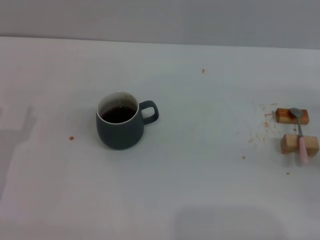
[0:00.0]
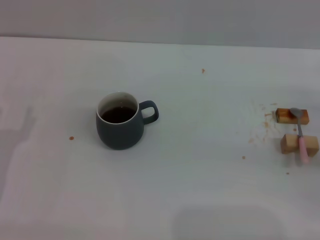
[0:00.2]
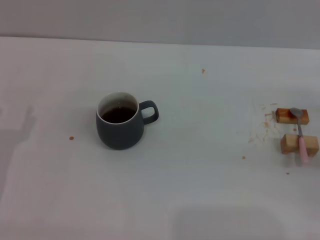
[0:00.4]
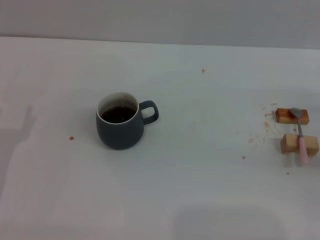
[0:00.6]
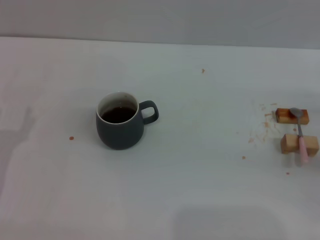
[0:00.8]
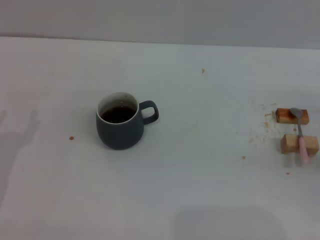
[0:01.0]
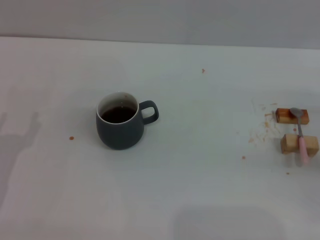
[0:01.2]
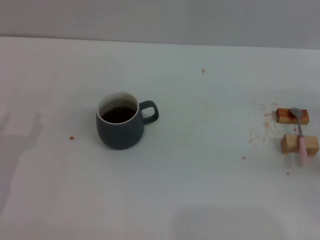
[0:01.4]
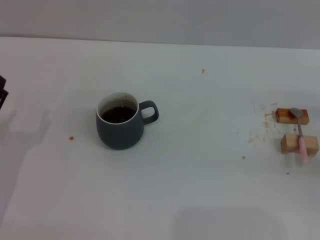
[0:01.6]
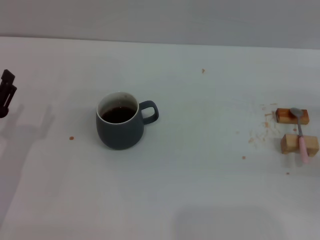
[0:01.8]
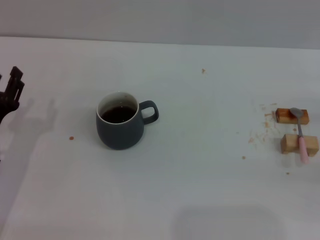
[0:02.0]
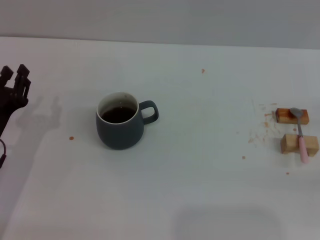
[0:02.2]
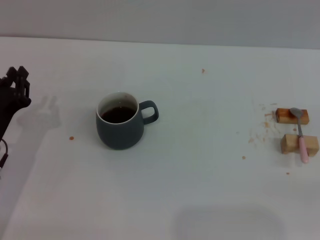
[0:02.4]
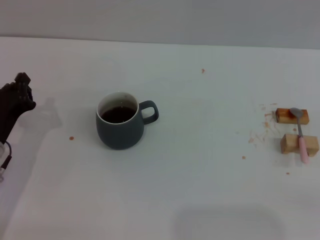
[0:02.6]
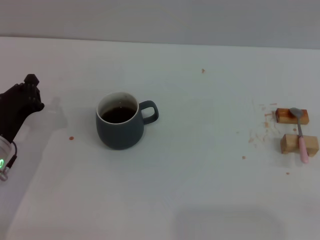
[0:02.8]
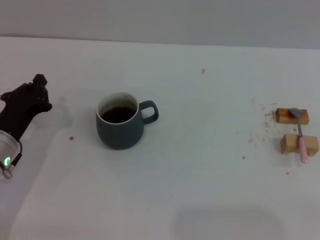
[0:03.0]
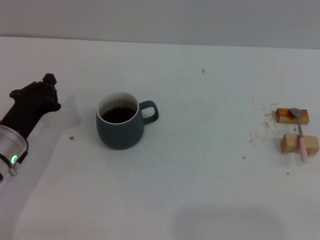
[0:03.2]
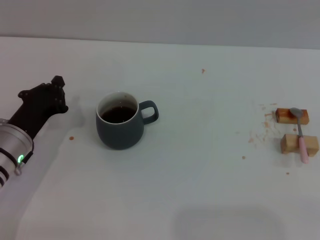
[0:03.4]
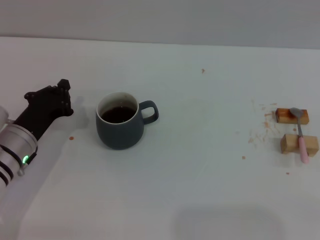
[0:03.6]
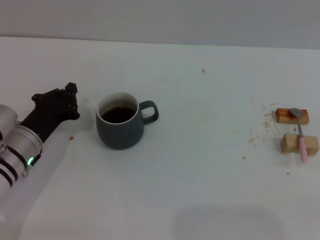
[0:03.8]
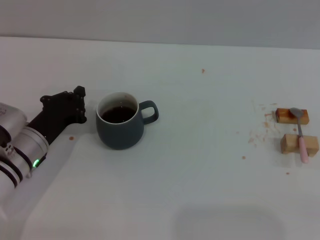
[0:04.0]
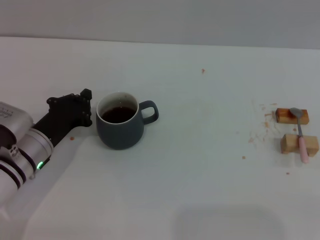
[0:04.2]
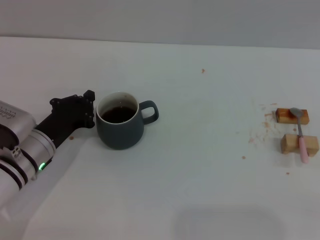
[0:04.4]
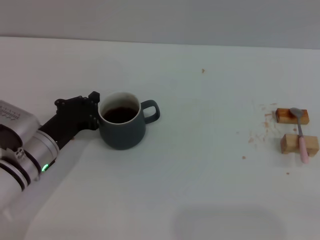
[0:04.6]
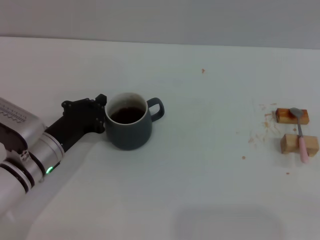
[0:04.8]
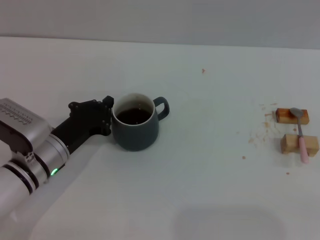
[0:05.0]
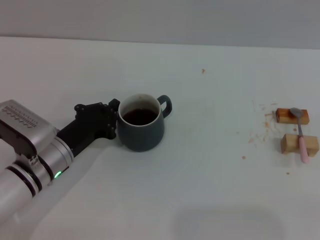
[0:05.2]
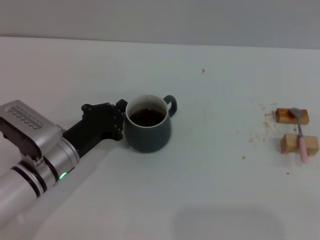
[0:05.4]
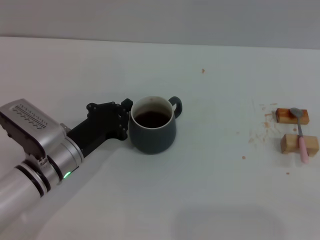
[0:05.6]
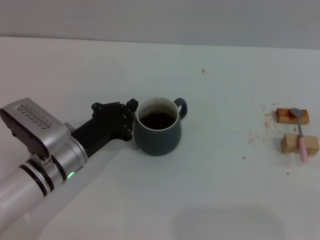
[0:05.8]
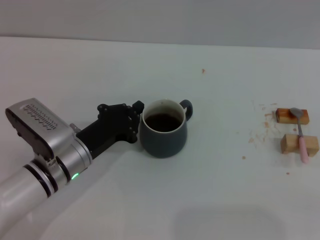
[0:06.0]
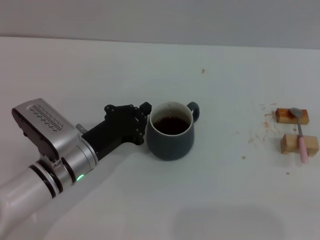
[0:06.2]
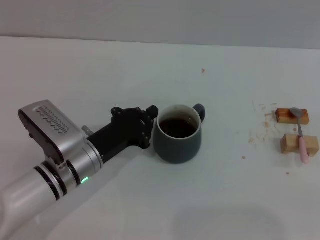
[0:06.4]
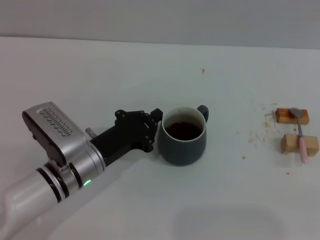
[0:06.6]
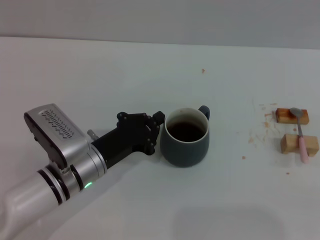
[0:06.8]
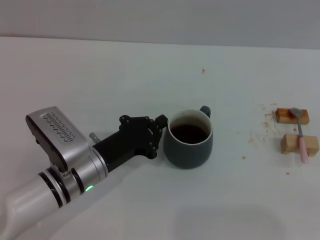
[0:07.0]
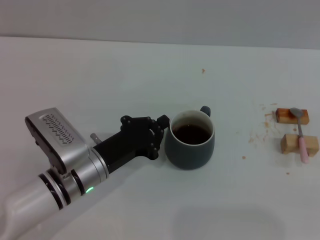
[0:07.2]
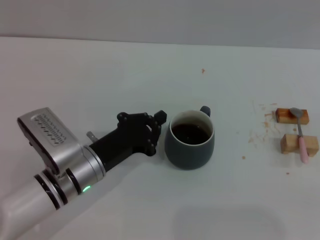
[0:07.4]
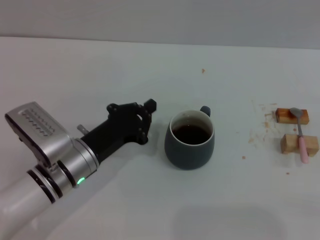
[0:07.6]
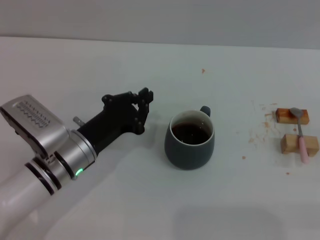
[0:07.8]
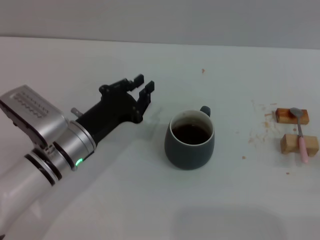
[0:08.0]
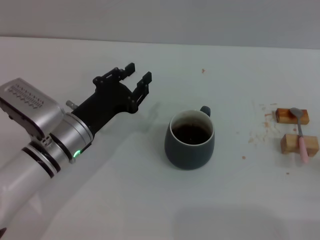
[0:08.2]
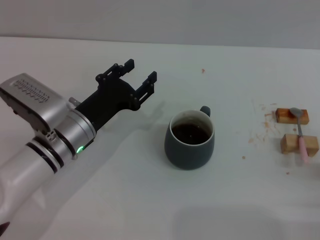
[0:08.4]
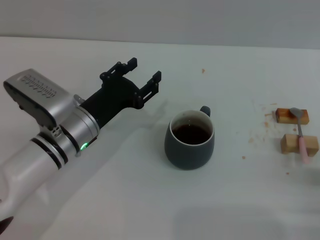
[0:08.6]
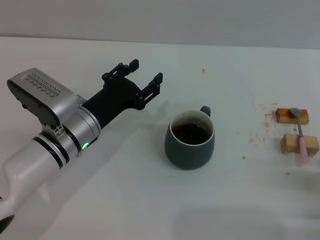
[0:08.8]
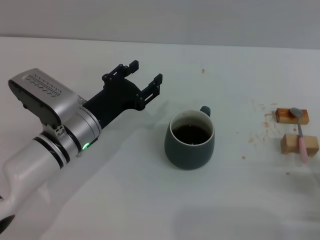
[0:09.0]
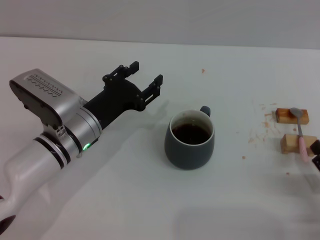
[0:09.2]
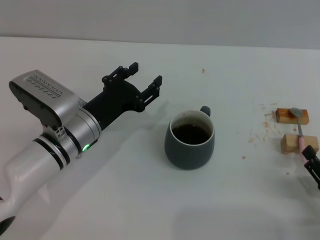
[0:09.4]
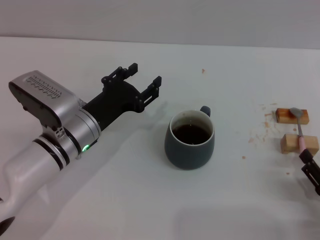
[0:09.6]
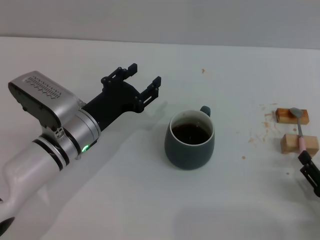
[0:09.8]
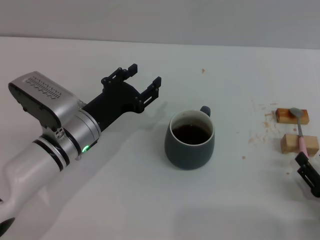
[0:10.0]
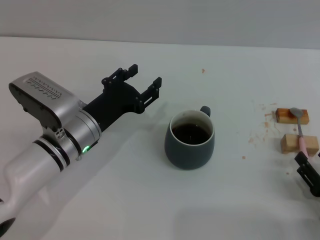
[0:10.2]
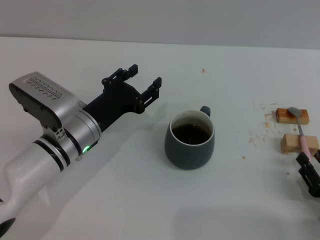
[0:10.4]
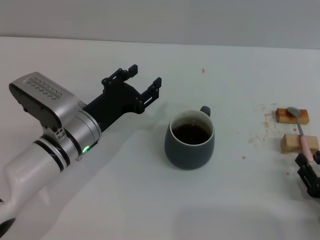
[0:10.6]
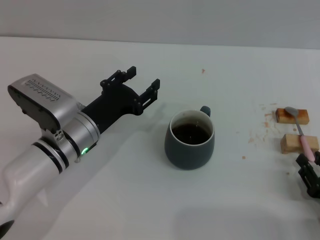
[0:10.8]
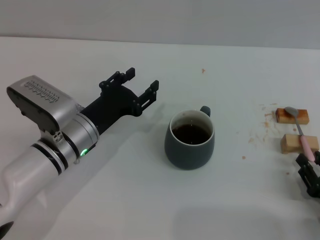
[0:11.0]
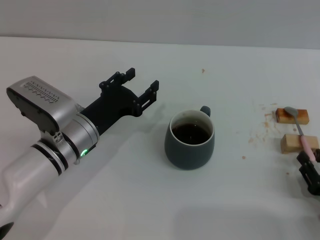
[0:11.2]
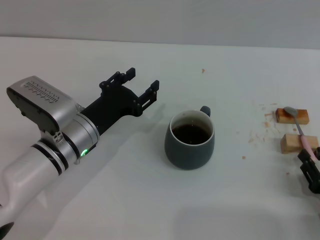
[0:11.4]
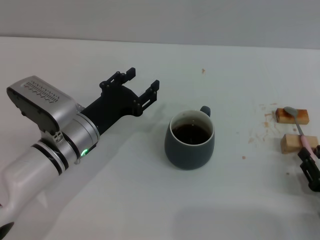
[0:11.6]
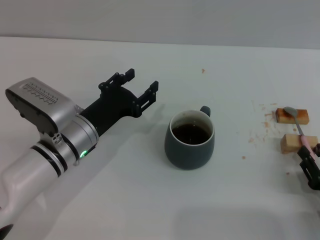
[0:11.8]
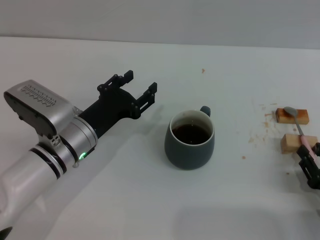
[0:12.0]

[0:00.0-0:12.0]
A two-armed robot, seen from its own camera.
Task of the whole recording: Move the grey cup to the center, lift the pink spoon, stir it three times in the cup, and put the spoon into the cup.
Step, 0:00.0 to 0:07.6: Move the cup with coffee to the center of view with the left gripper.
0:01.6 to 0:03.0: The left gripper is displaced forward by about 5 cm, and closes its fingers. The right gripper heads to the right and backward, covering roughly 15 cm.
0:03.0 to 0:04.4: The grippers stay close to where they were, moving slightly.
0:04.4 to 0:06.0: The left gripper heads to the right, covering some 5 cm.
0:06.0 to 0:07.6: The grippers make only small movements.
0:07.6 to 0:09.0: The left gripper opens. Meanwhile the right gripper shifts about 10 cm to the left and backward.
0:09.0 to 0:10.4: The grippers move only a little.
0:10.4 to 0:12.0: The right gripper closes up.

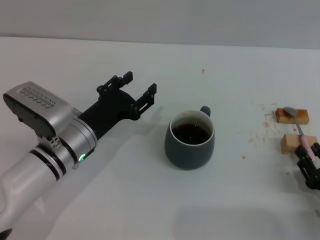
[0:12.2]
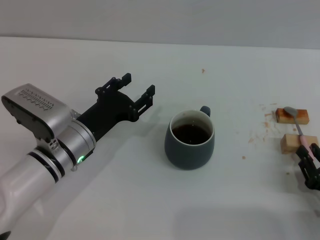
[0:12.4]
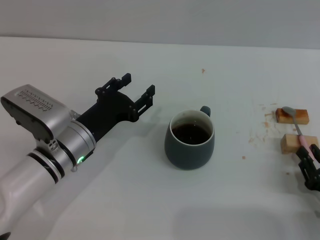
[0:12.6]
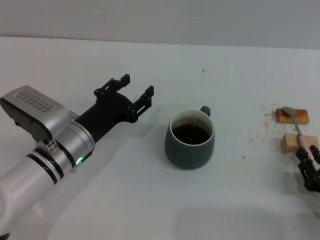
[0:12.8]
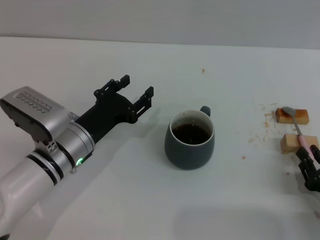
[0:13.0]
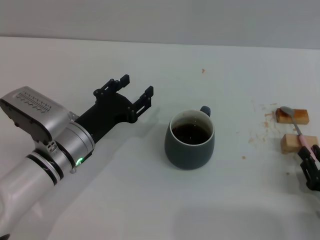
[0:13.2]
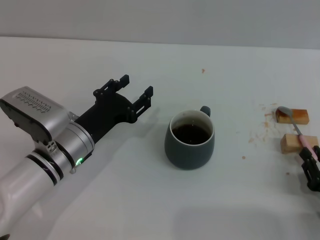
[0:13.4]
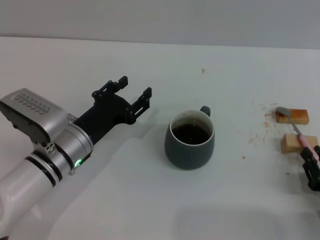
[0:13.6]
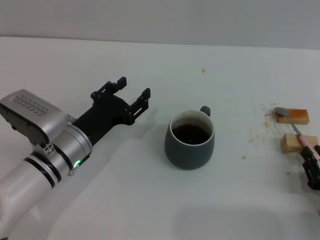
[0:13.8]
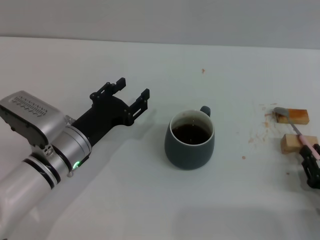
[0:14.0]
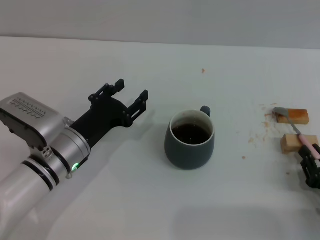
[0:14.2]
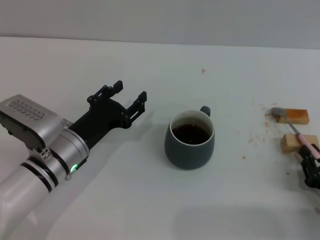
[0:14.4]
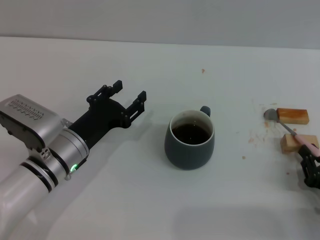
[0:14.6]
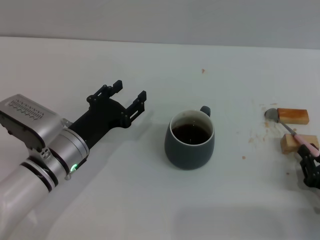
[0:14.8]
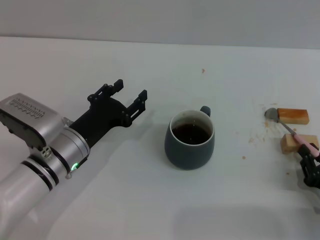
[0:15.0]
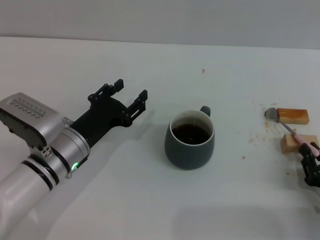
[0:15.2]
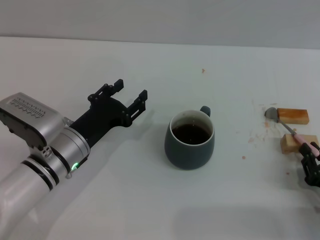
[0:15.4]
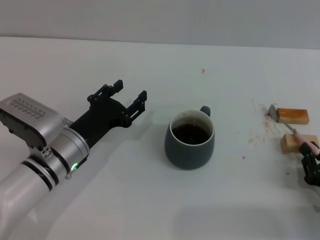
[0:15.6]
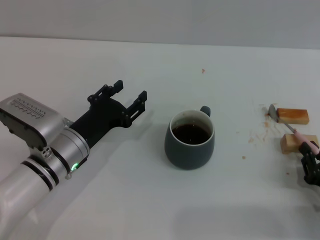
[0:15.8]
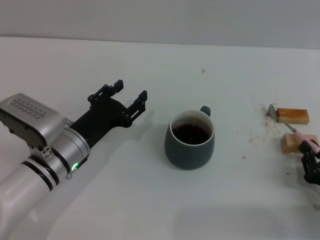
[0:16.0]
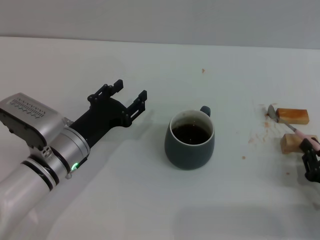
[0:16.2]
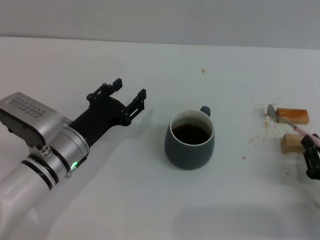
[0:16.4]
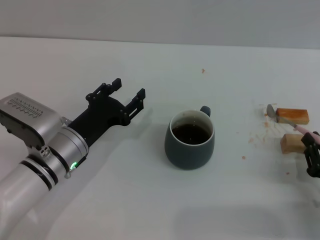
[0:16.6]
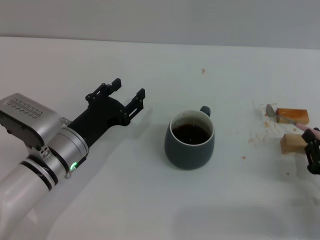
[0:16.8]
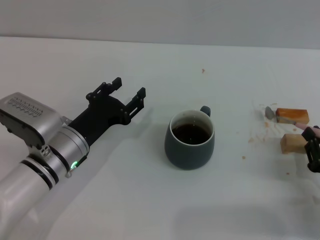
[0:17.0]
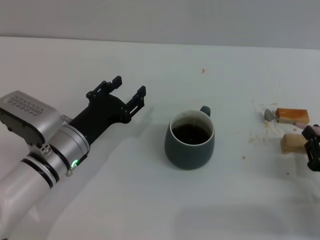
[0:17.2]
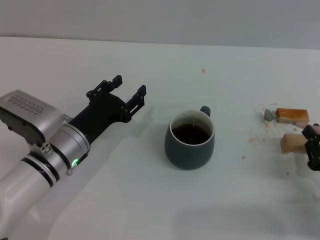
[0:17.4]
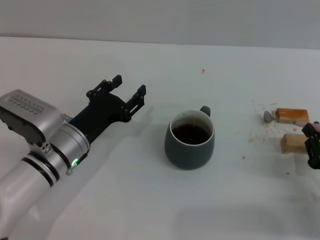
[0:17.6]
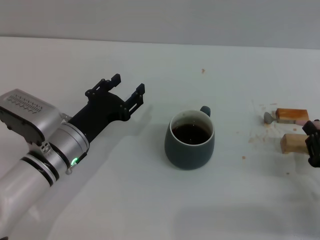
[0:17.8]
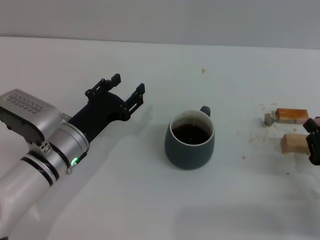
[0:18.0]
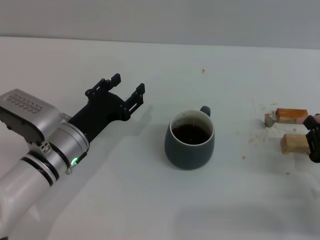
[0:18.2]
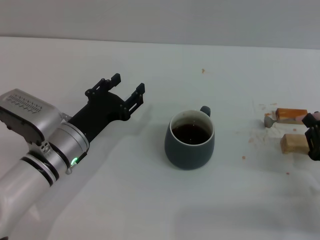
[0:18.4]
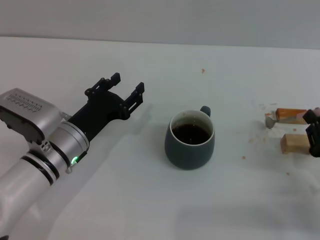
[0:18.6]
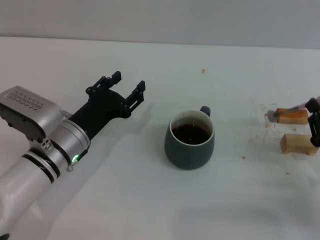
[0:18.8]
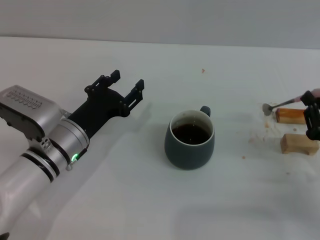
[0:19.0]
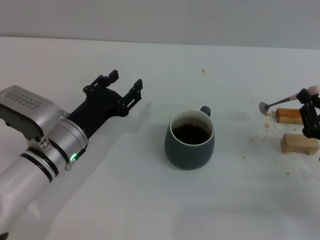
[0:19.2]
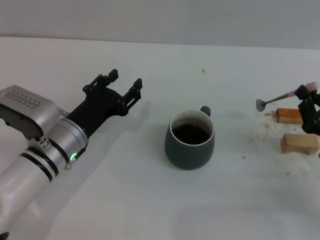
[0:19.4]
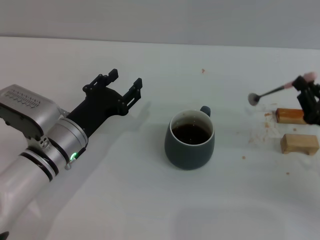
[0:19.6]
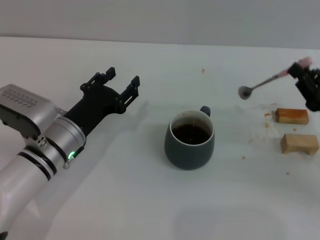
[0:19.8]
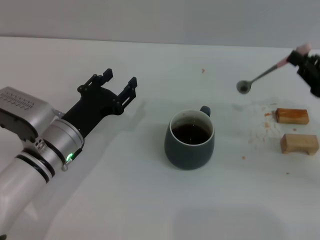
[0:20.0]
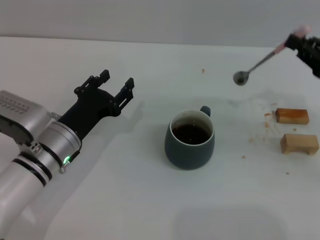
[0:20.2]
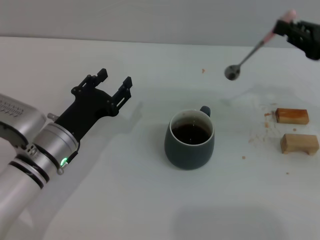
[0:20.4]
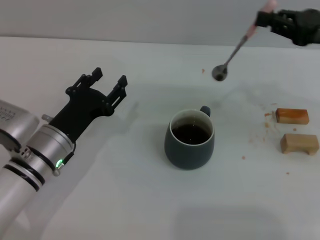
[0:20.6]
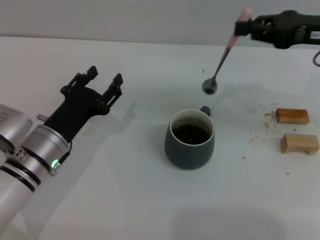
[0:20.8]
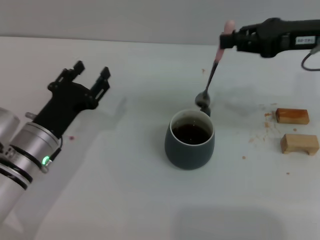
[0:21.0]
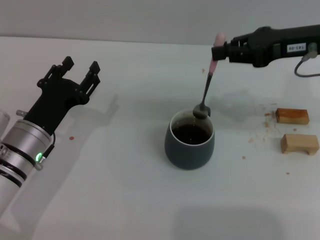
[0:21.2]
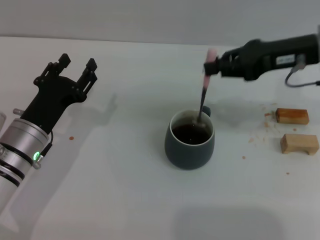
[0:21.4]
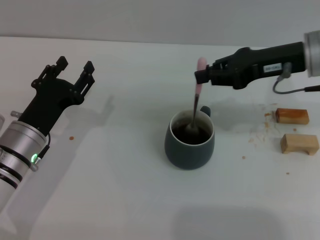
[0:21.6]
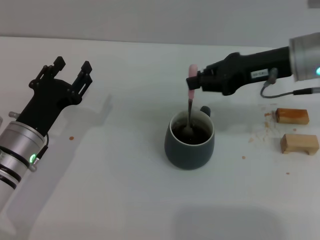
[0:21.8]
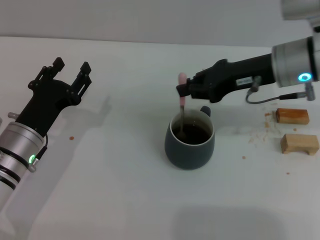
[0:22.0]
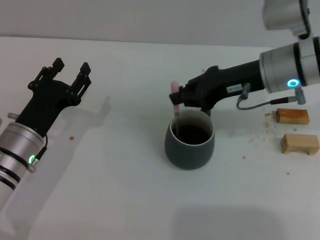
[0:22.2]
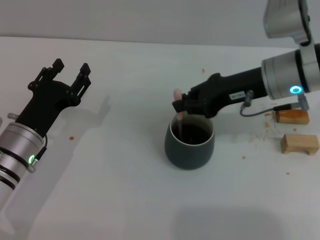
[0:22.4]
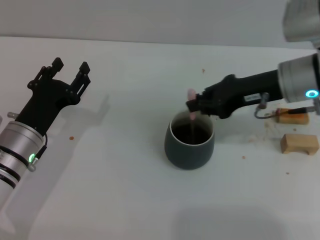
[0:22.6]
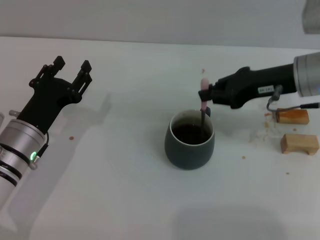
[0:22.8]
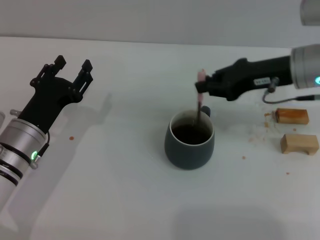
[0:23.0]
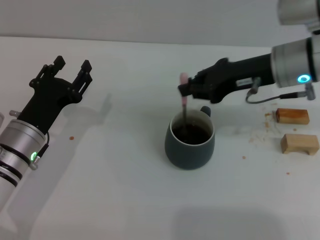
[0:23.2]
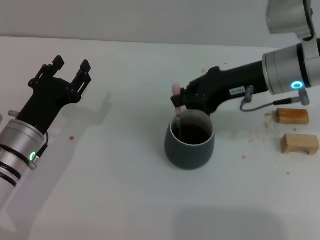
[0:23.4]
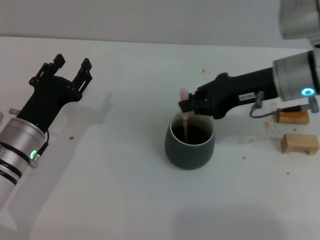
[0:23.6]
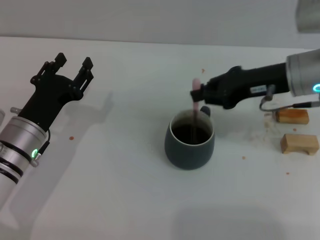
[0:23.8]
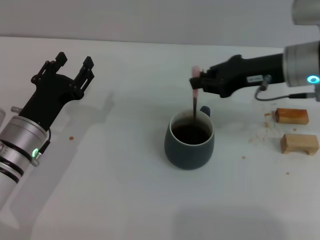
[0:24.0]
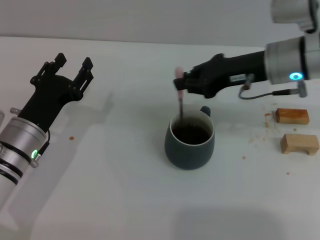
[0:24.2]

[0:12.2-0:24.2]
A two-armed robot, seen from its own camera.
Task of the whole recording: Move the grey cup to the center, lift the pink spoon, stir it three times in the cup, and put the spoon into the cup.
Step, 0:12.2 to 0:19.2: Pick up the spoon with the right gripper.
0:12.2 to 0:13.8: The two grippers keep their place.
0:13.8 to 0:15.2: Neither gripper changes place.
0:15.2 to 0:16.6: Both grippers stay put.
0:16.6 to 0:18.2: The grippers make only small movements.
0:18.2 to 0:19.8: The right gripper is displaced forward and upward by some 10 cm.
0:19.8 to 0:21.2: The right gripper shifts some 20 cm upward, forward and to the left.
0:21.2 to 0:22.6: The right gripper travels downward by roughly 5 cm.
0:22.6 to 0:24.2: The grippers stay close to where they were, moving slightly.
